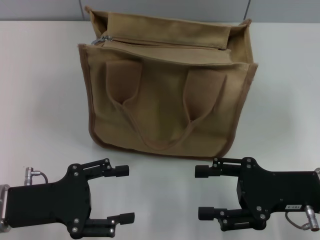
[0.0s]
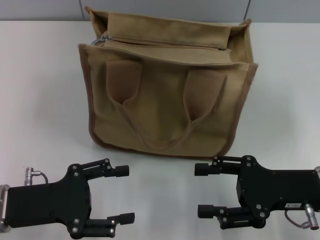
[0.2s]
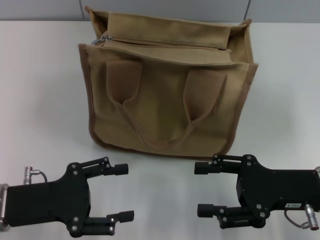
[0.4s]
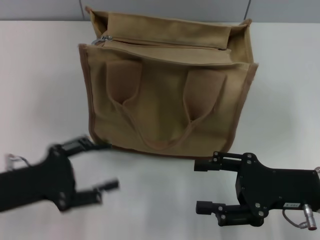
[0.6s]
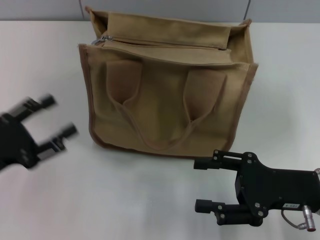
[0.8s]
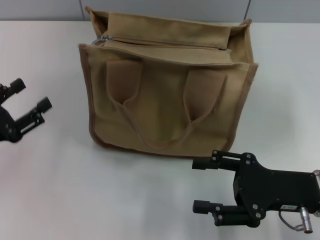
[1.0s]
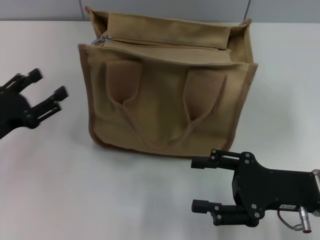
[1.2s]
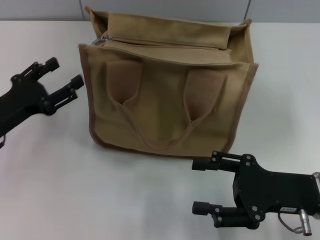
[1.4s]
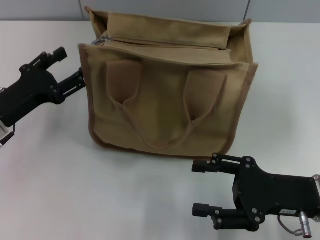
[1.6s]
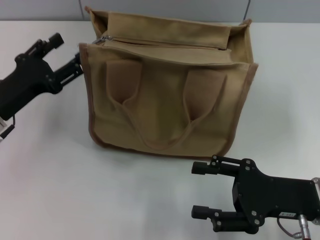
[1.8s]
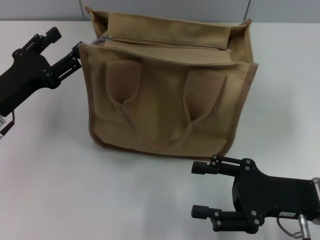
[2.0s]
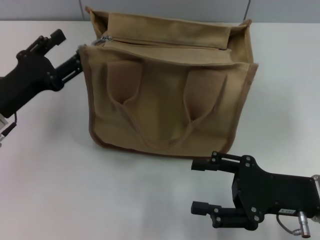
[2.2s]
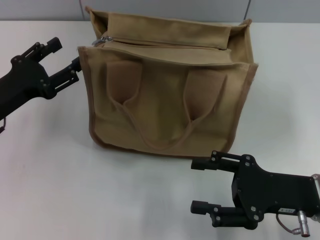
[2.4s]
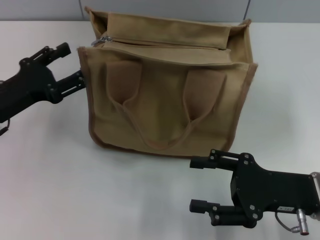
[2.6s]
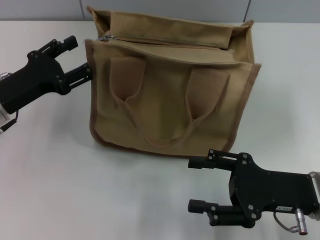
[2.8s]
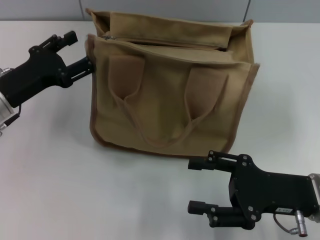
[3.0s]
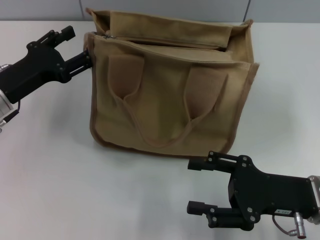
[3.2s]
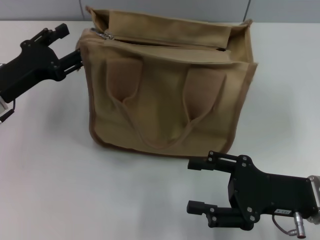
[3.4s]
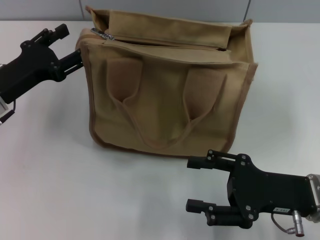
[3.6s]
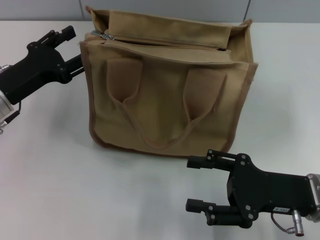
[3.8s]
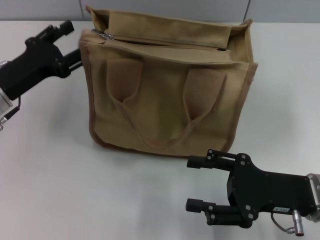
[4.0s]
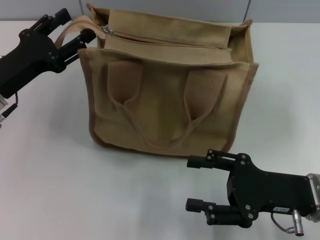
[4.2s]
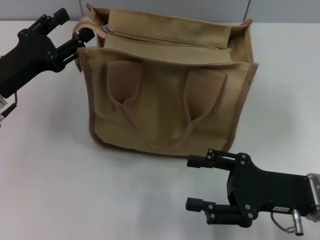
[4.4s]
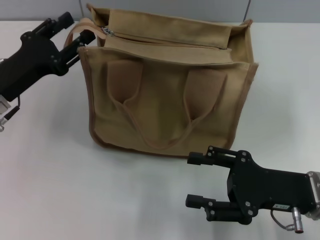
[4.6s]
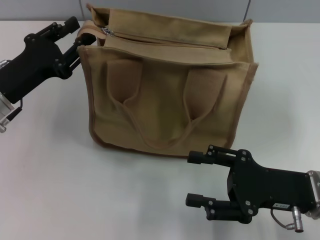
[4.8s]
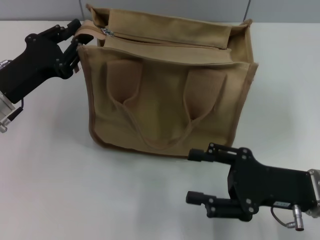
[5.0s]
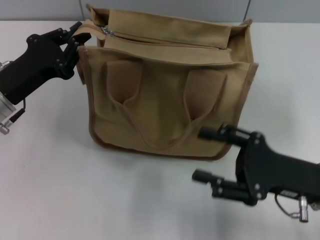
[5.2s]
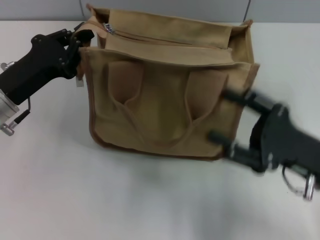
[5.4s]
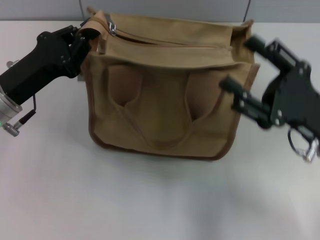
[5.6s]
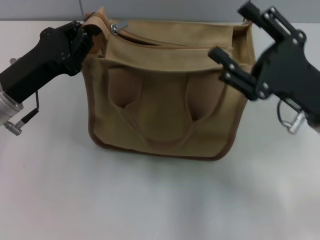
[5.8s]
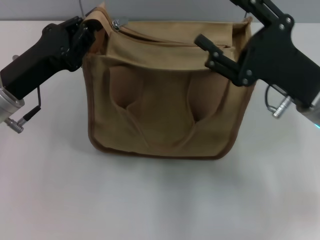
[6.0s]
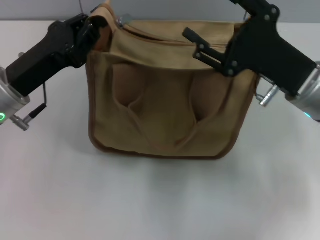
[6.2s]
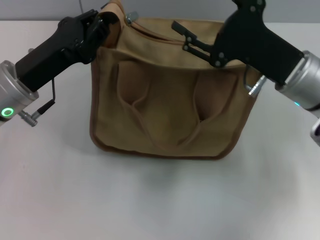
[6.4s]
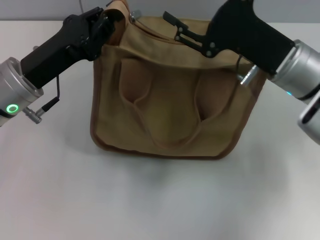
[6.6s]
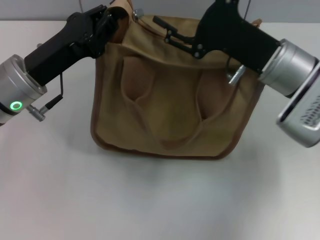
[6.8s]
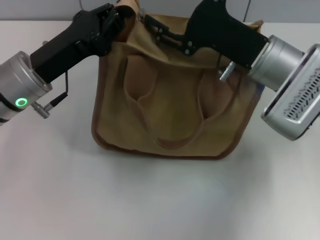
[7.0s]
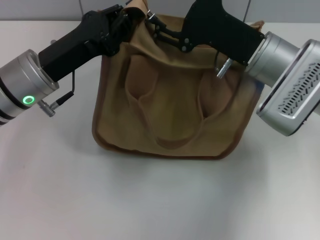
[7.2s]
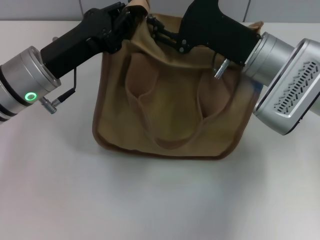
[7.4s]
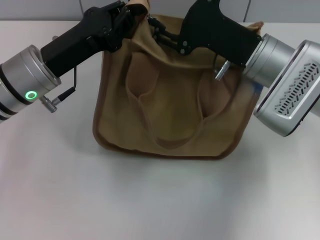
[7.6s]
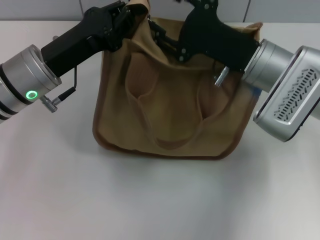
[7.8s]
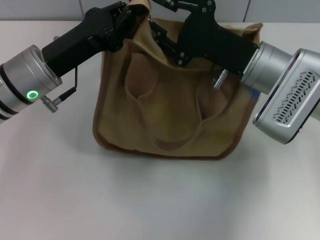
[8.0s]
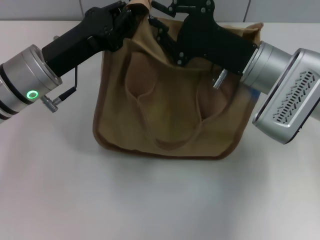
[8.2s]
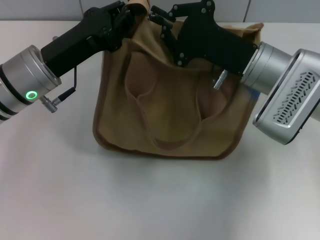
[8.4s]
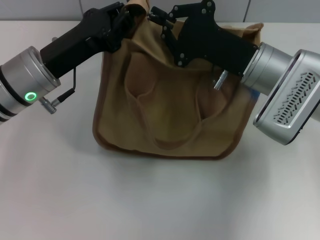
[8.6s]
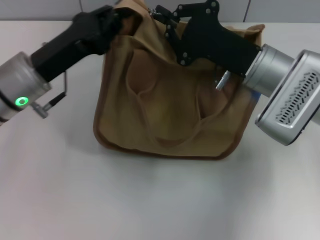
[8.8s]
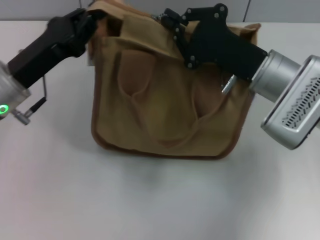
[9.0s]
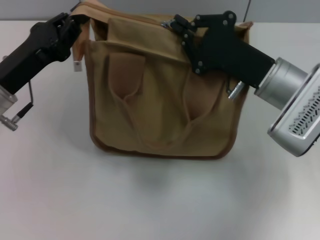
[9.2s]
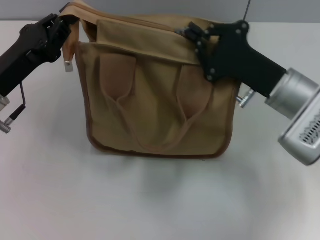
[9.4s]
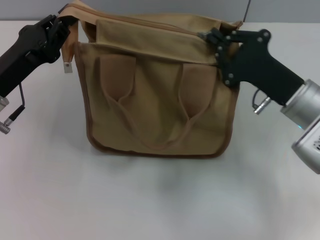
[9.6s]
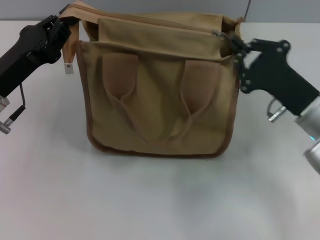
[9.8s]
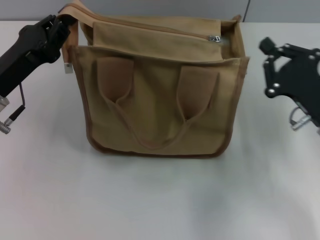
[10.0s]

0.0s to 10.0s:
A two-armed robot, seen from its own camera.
Step, 0.0s to 9.6s: Pull up the zipper with your right hand.
0.0s to 1.4s: The left gripper goes approximately 5 cm forward.
1.4s to 4.2s: There are only small adjustments of the grippers.
4.2s to 5.8s: The right gripper travels forward by about 5 cm, while the left gripper closes its fingers.
5.8s to 7.2s: The left gripper moves some 5 cm. Meanwhile the right gripper shifts approximately 10 cm forward and to the left.
7.2s to 8.6s: The right gripper closes its fingers.
8.6s to 10.0s: The left gripper goes roughly 5 cm to the left. The right gripper moves to the right, backward and downward, approximately 15 cm.

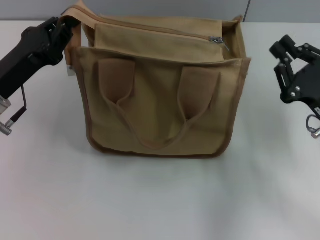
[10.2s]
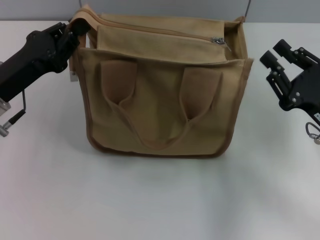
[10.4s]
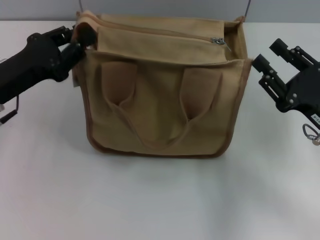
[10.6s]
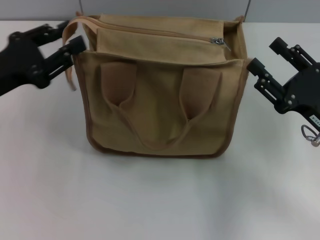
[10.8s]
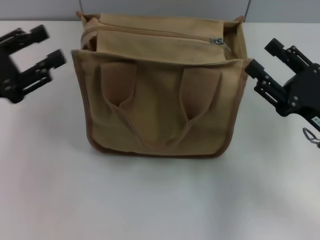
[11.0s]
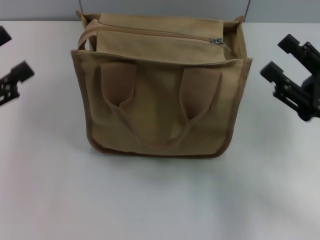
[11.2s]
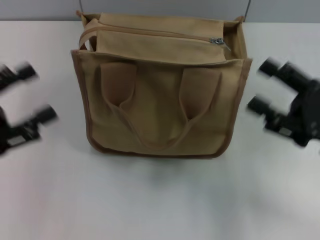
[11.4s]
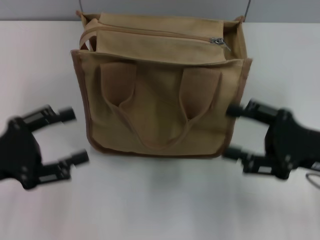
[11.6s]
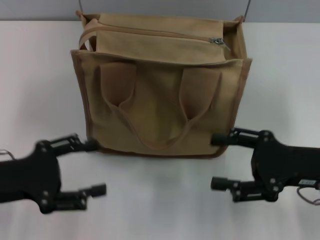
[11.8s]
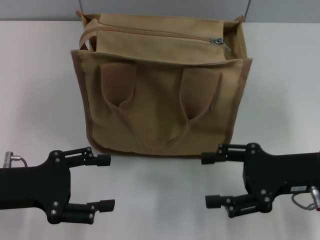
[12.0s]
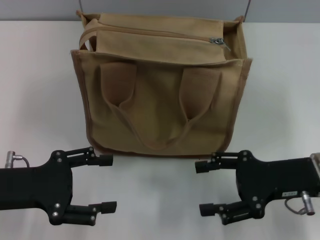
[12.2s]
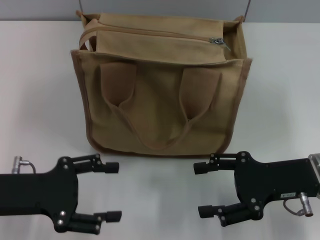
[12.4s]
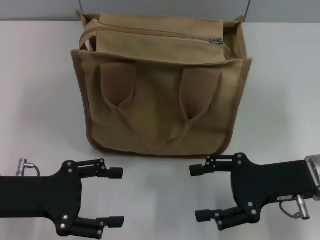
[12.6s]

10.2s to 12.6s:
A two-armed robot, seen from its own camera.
Step, 10.2s to 10.8s: Grab the zipper with your left hand.
10.2s to 11.4s: The left gripper is displaced backward and to the left by about 10 cm, and opens up. The right gripper opens up.
11.4s to 12.6s: The right gripper ends up some 5 cm from where it was, while the left gripper goes approximately 5 cm to the right.

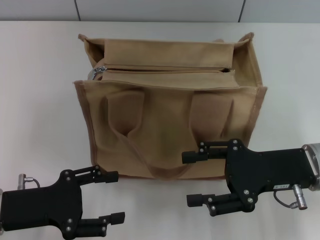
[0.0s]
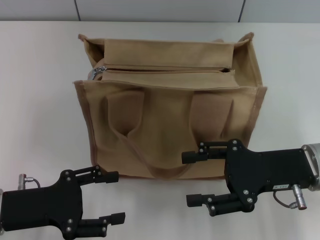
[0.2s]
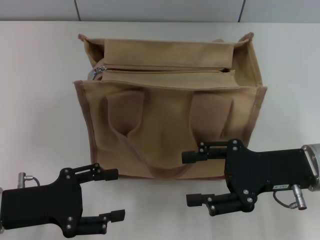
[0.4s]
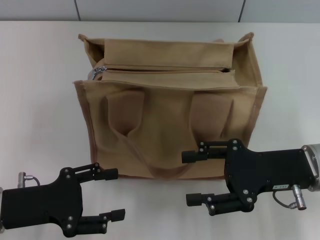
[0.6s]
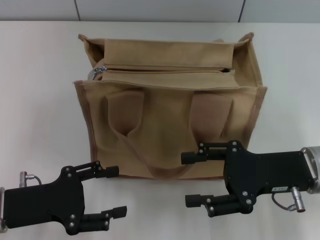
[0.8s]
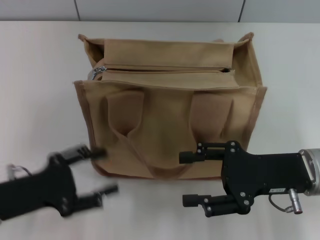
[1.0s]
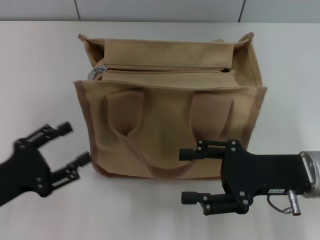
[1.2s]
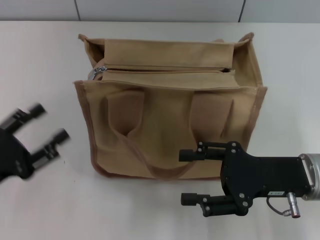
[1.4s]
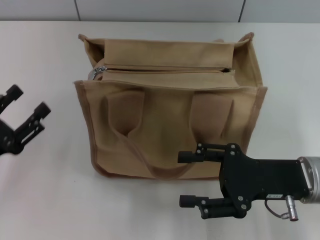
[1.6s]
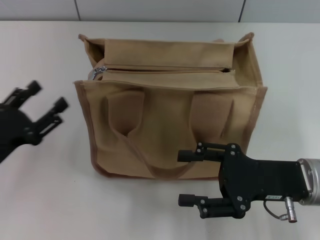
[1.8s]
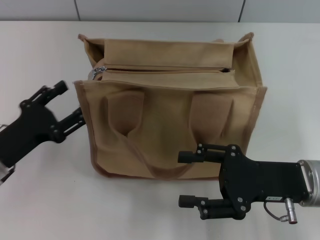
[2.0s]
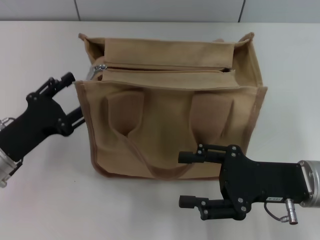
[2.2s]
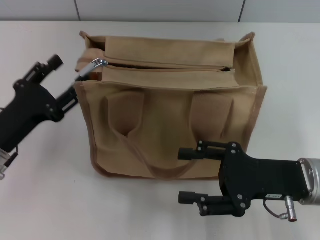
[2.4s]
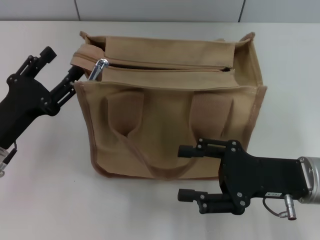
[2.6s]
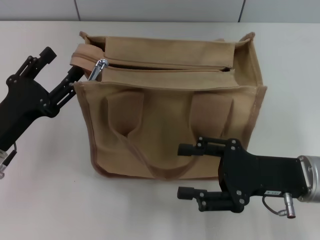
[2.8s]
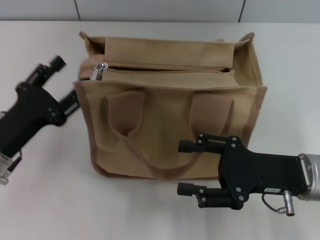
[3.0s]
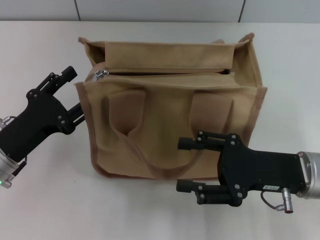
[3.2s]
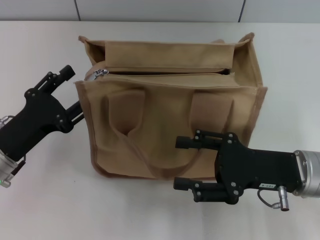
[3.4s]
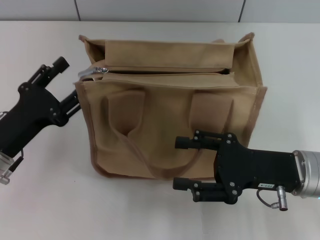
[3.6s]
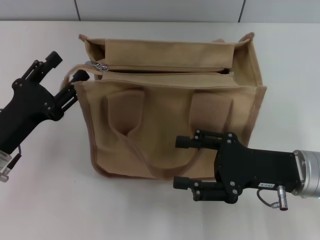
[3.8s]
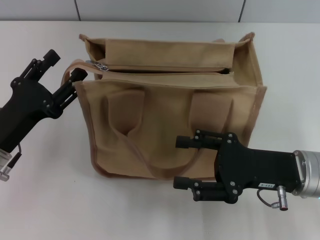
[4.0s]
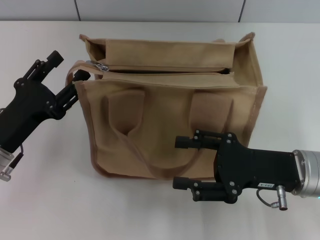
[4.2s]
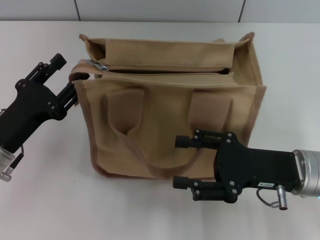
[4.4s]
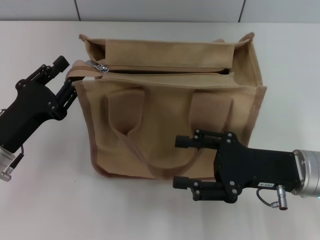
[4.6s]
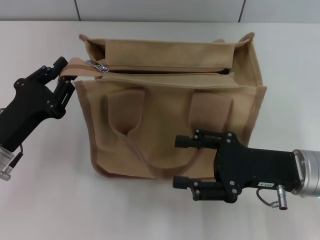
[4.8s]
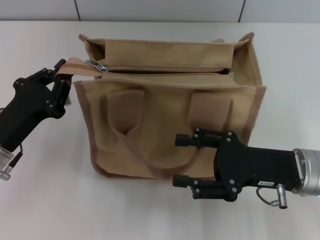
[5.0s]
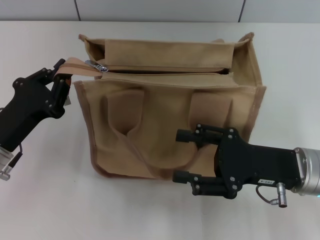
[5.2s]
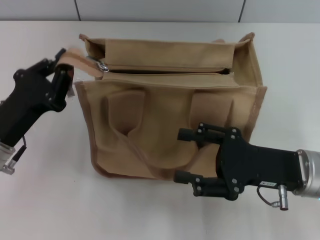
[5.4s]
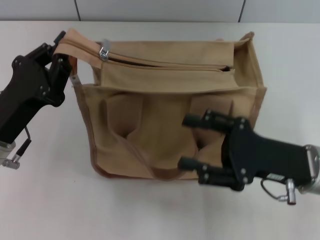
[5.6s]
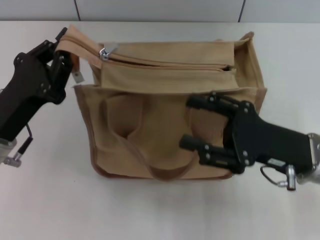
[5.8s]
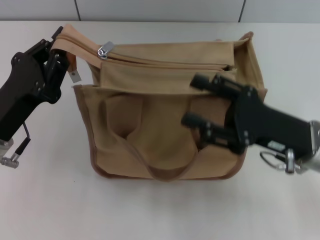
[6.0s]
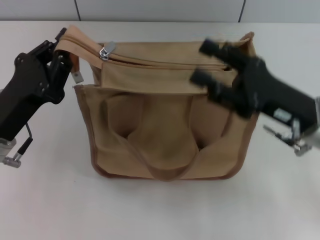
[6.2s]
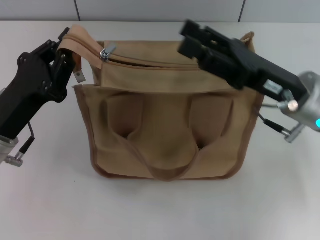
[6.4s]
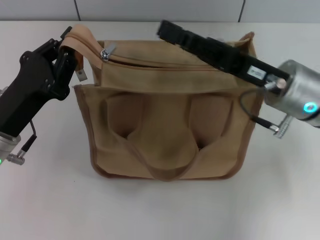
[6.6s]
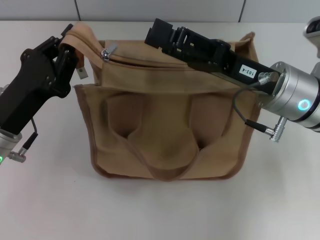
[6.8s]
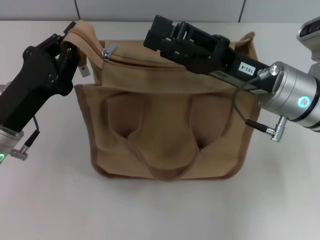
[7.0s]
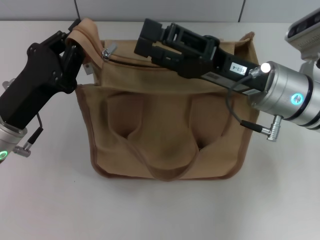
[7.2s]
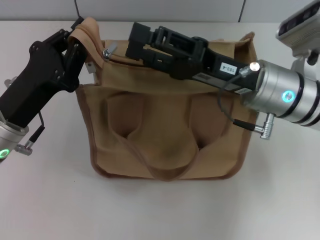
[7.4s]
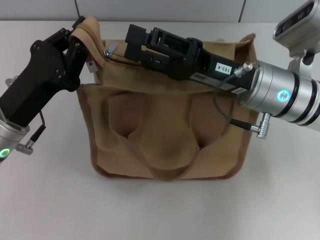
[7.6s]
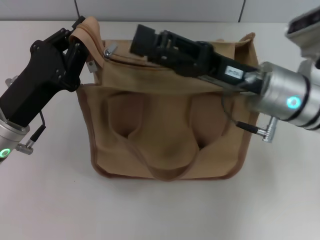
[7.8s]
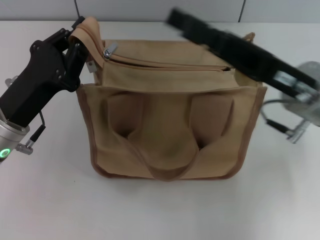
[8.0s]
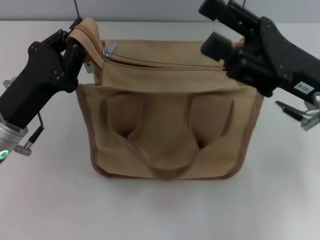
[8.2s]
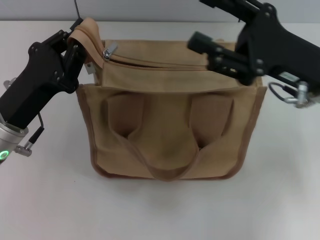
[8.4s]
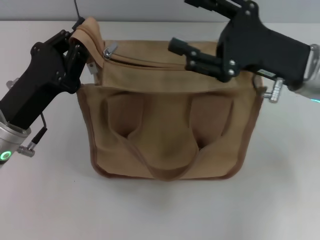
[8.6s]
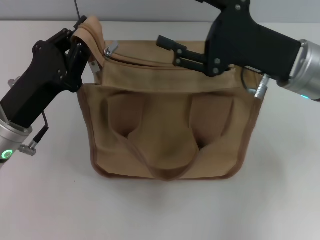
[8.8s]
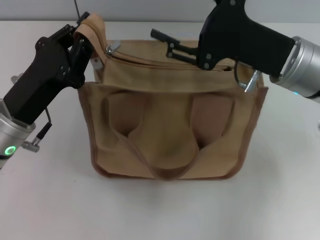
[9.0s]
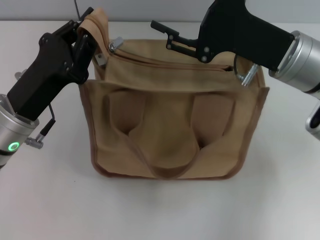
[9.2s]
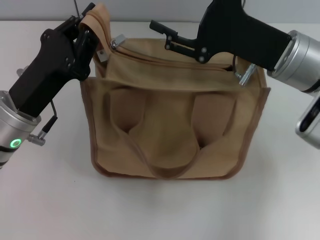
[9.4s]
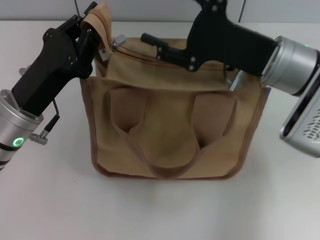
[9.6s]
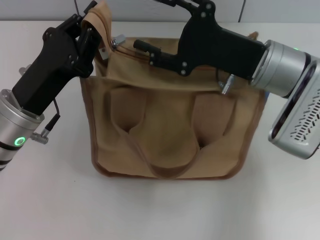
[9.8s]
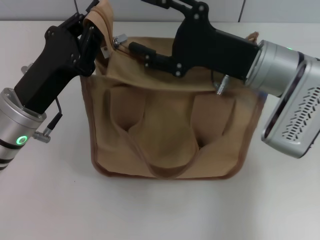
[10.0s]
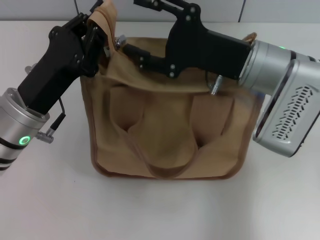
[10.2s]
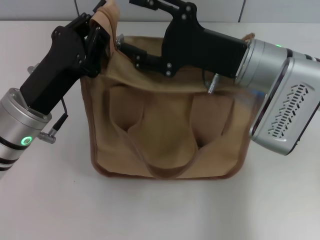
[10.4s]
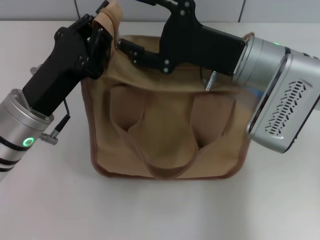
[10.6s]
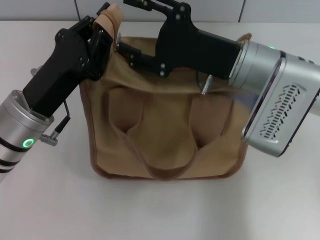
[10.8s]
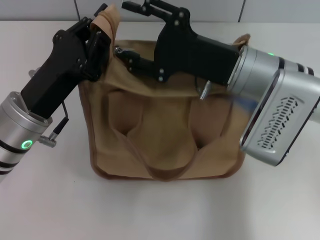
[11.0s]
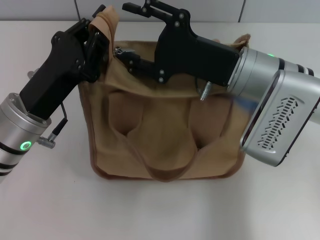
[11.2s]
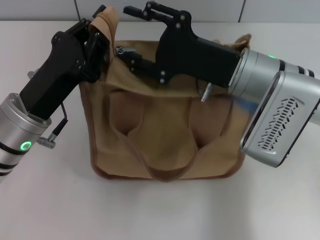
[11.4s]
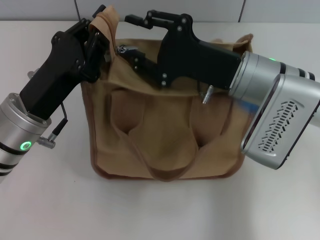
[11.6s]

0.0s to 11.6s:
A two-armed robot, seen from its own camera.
1.4s to 2.8s: The left gripper travels forward by some 5 cm.
2.8s to 4.4s: There are only small adjustments of the grippers.
4.4s to 5.8s: The left gripper closes up.
5.8s to 7.2s: The right gripper heads forward and to the left, covering some 10 cm.
10.2s to 11.6s: The grippers make only small movements.
